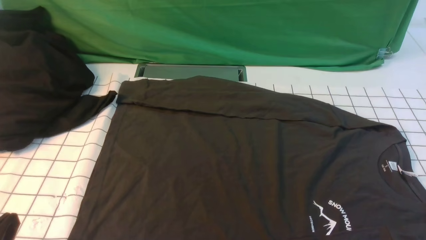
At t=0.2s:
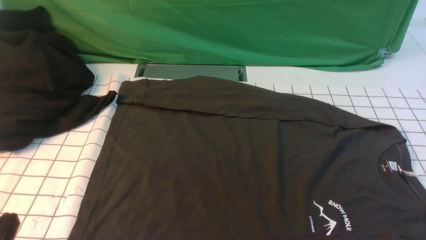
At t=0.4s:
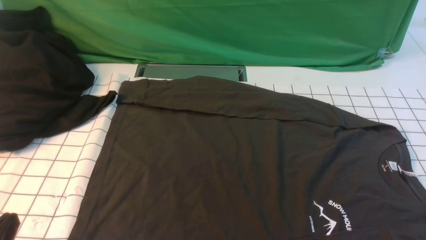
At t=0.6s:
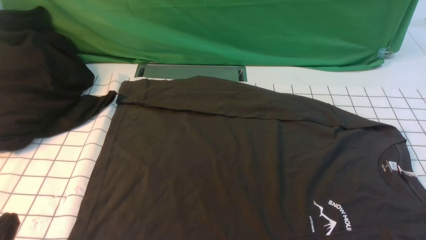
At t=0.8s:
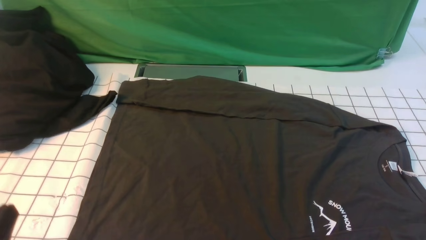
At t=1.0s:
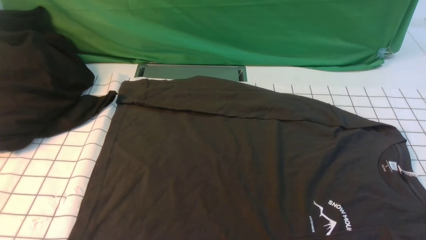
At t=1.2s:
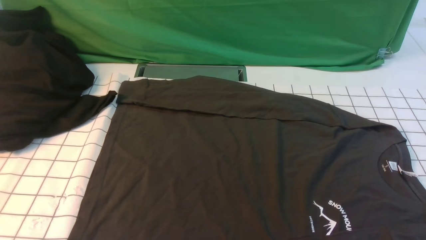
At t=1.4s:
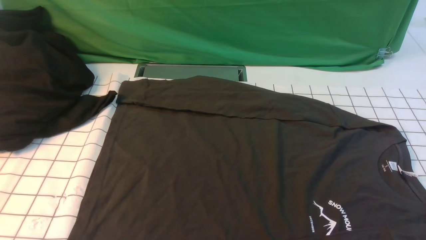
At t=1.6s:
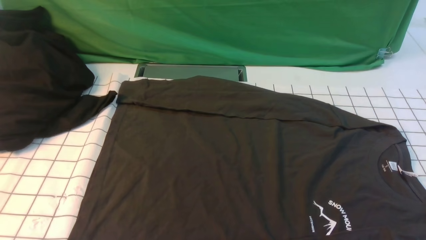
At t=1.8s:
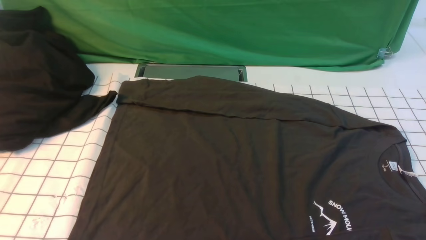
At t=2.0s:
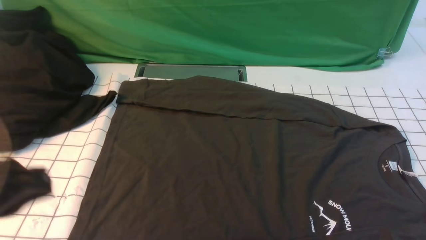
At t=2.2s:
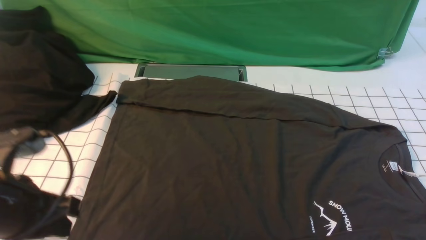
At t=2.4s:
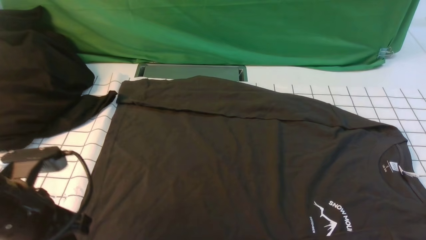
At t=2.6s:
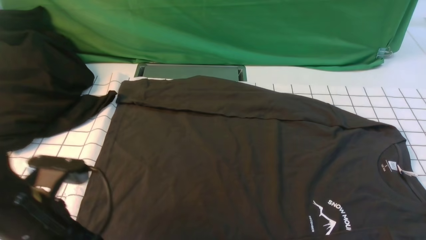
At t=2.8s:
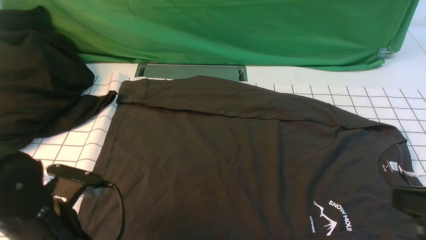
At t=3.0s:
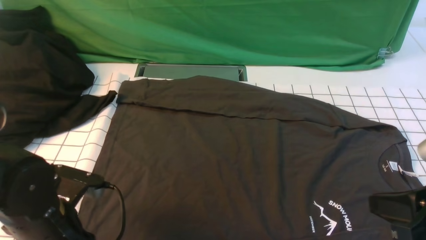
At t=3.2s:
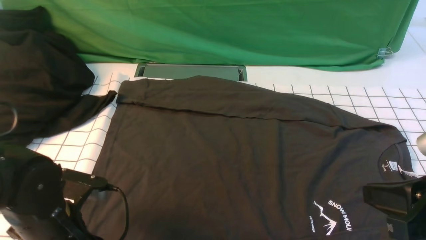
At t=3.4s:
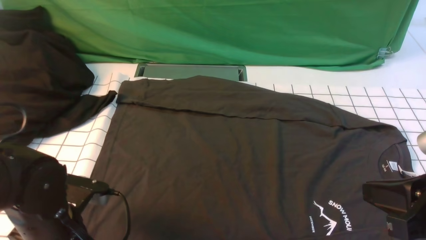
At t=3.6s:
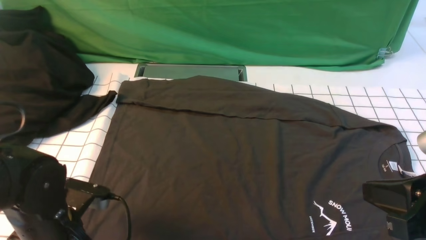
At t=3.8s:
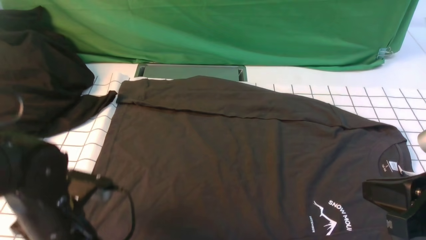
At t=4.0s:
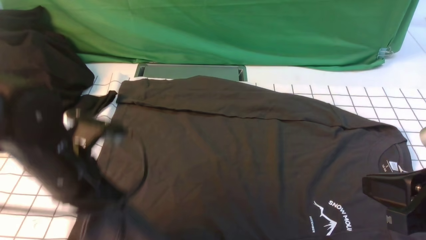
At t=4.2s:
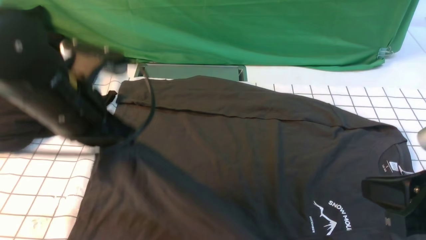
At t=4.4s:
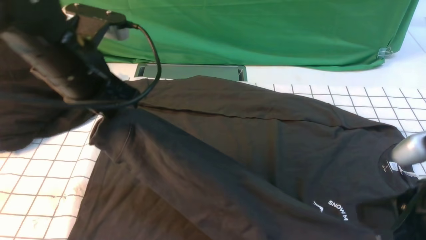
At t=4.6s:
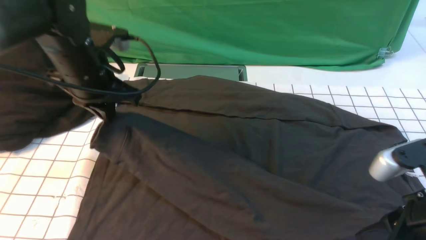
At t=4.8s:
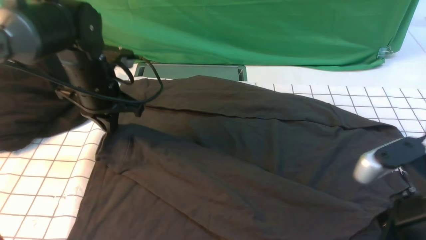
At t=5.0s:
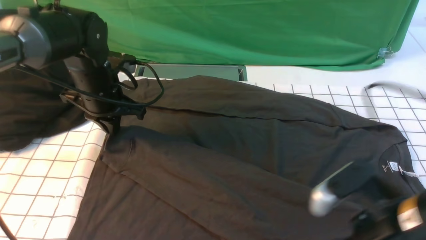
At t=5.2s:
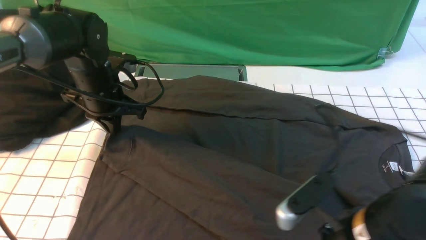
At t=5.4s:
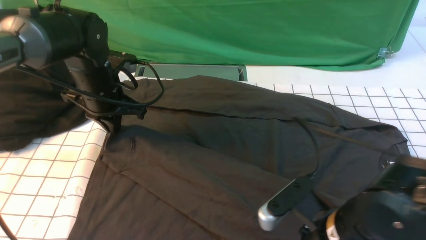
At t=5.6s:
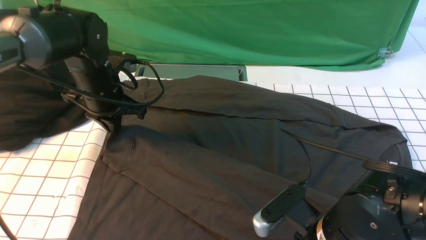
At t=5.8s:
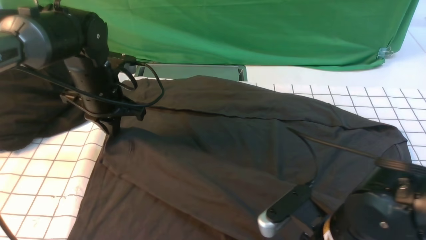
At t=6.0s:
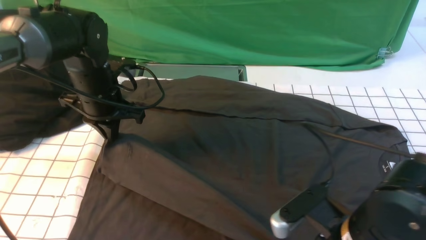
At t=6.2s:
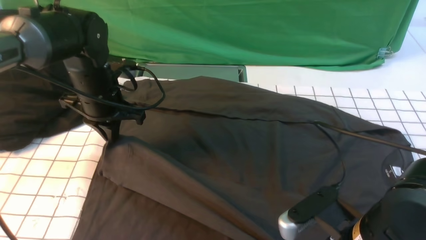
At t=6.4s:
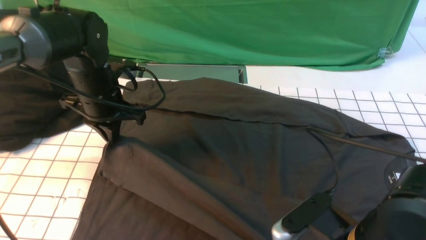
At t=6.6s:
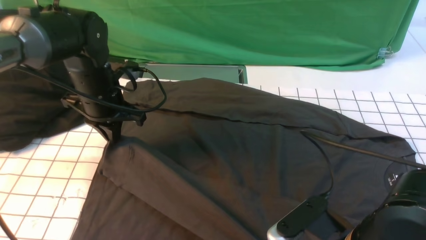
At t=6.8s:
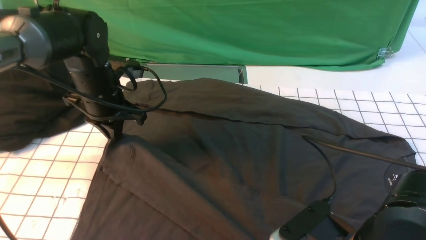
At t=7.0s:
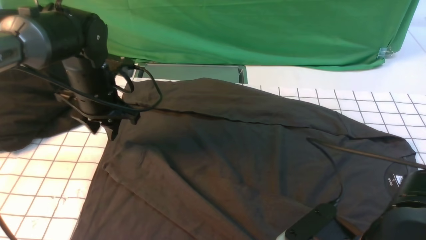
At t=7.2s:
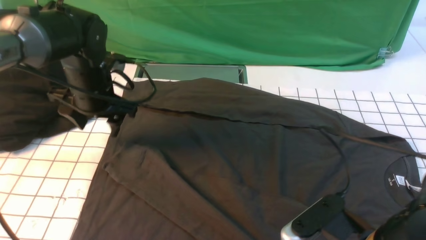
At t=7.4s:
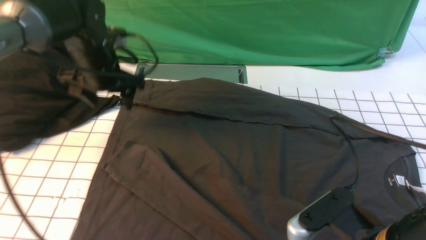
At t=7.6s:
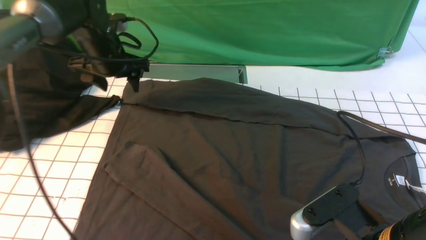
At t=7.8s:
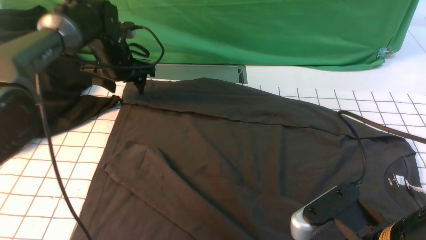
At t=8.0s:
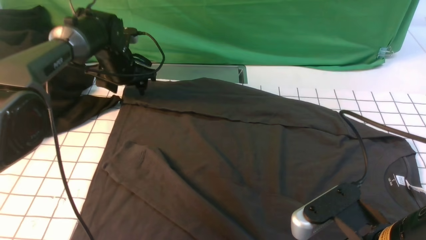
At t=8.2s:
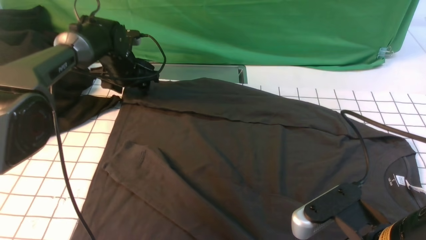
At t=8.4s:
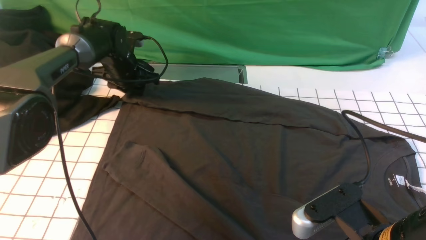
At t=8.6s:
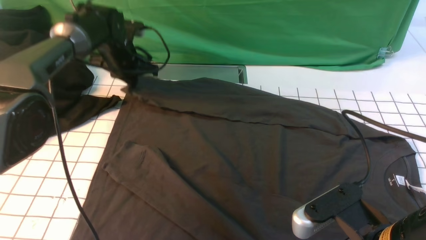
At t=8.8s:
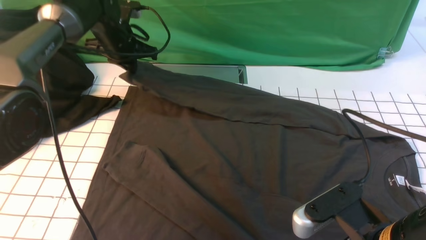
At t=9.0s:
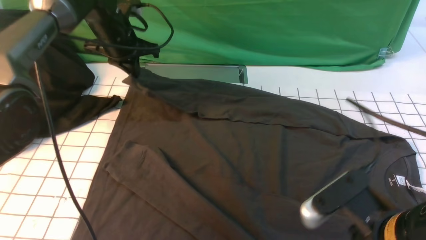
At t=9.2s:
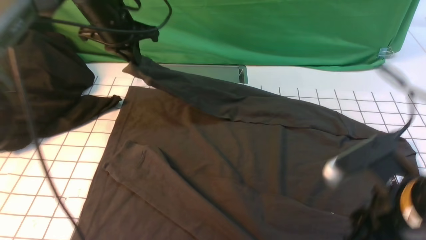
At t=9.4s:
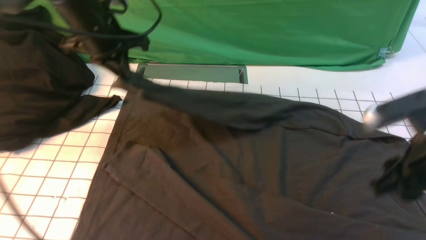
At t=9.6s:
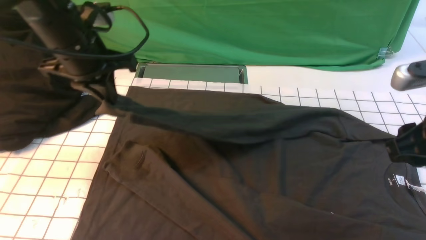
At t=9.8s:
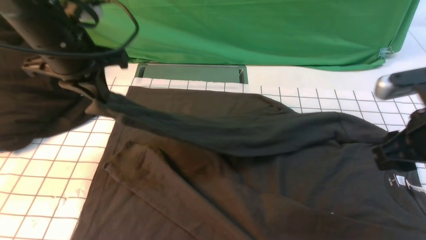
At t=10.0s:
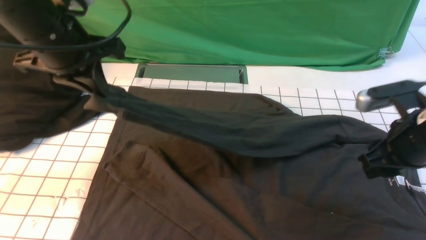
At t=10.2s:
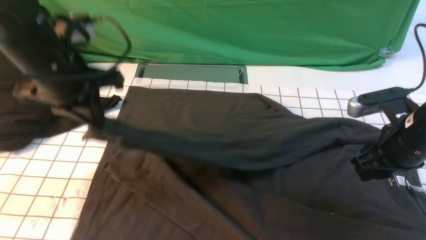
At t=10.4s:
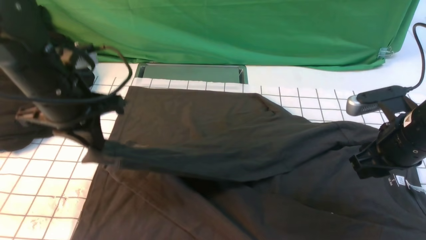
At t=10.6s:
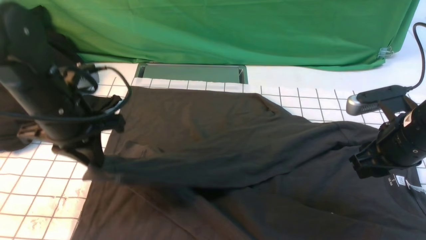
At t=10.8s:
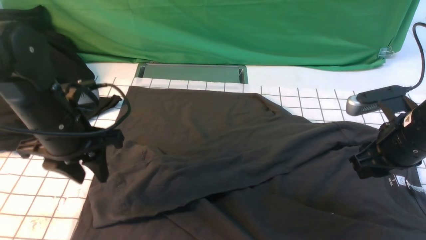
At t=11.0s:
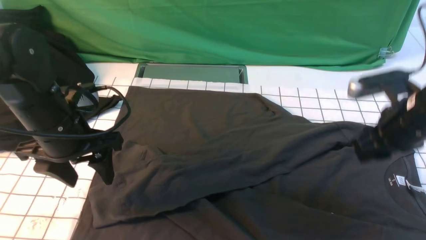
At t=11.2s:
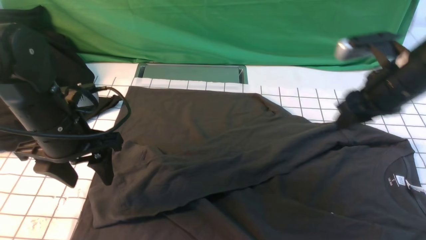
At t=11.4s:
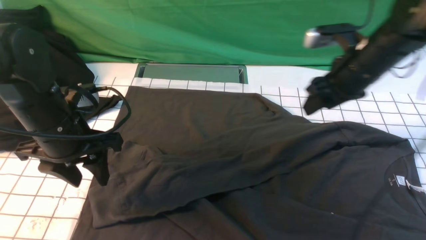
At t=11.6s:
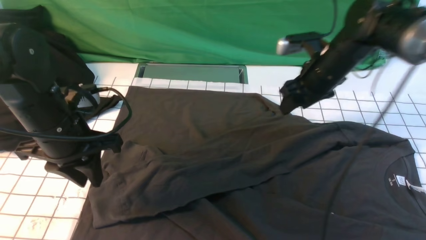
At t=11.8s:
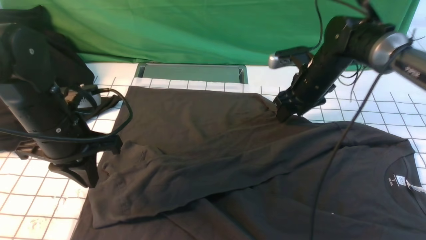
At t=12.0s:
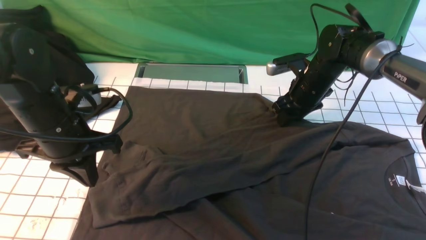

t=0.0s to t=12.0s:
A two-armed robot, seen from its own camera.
Step, t=0.0s to t=3.8s: use the left arm to clamp the cuff closest to it.
Step, t=4.0s to t=7.0s: use the left arm to drag and place the cuff at the centered position on the left edge of the fabric.
Step, t=7.4s to t=8.6s: use the left arm to clamp the cuff farthest from it.
Step, t=8.8s to t=10.8s: use the left arm to drag and drop the cuff onto the cuff closest to the left arm.
t=1.6s to t=3.0s: The right gripper is displaced upward, to the left and forward by roughly 15 cm, and closes its fingers. Meanwhile the left gripper heads forward, downward and to the right, covering roughly 20 cm, and opens up.
t=3.0s to t=4.4s: The left gripper is displaced forward and upward by some 20 cm, and closes.
t=4.4s to t=6.0s: The left gripper goes approximately 10 cm downward and forward. Meanwhile the right gripper moves downward and to the left, some 10 cm, and opens, then closes once more.
t=6.0s to t=7.6s: The right gripper ends up roughly 5 cm from where it was, and opens up. Meanwhile the left gripper moves forward, about 10 cm, and opens its fingers.
t=7.6s to t=9.0s: The left gripper closes up.
t=9.0s to t=10.4s: The right gripper goes some 15 cm forward and to the right. The left gripper moves backward, roughly 20 cm.
t=10.4s to t=12.0s: The left gripper opens, then closes once more. Meanwhile the right gripper moves forward and to the left, some 20 cm.

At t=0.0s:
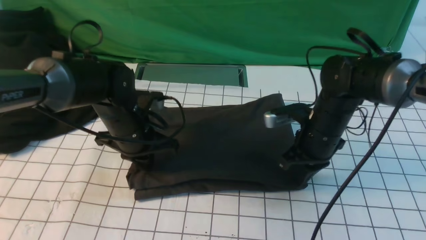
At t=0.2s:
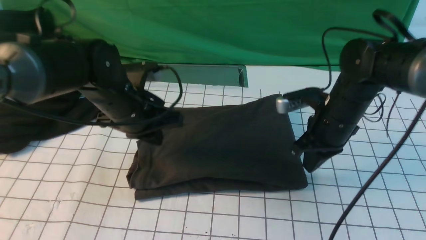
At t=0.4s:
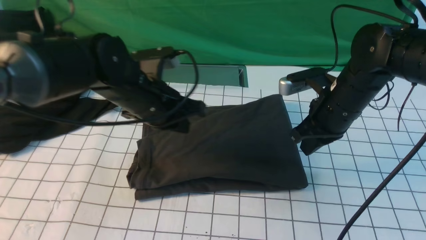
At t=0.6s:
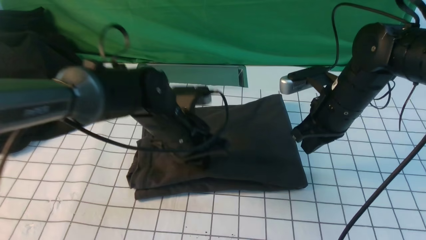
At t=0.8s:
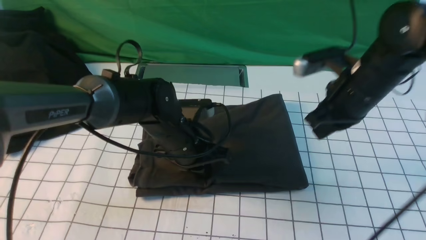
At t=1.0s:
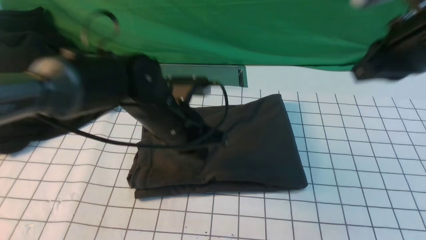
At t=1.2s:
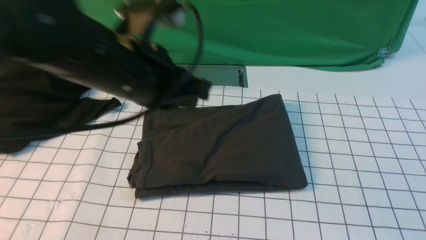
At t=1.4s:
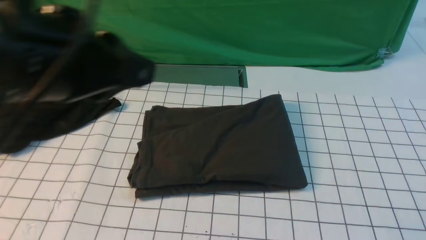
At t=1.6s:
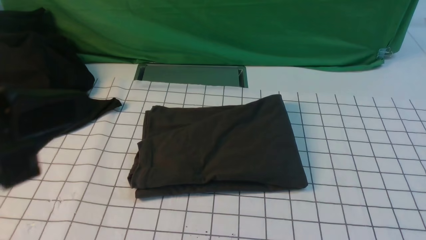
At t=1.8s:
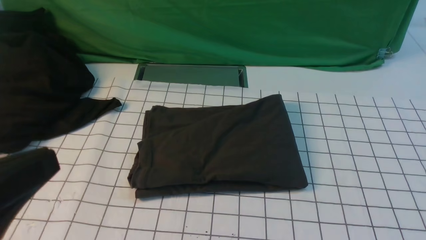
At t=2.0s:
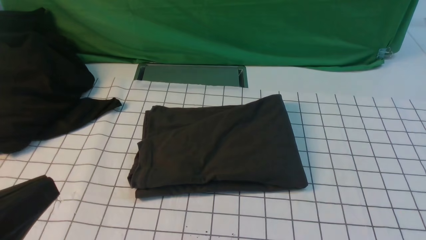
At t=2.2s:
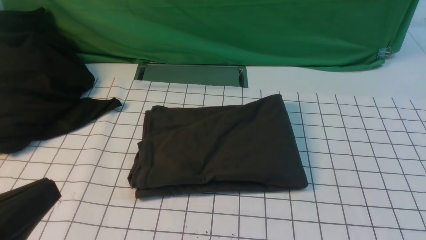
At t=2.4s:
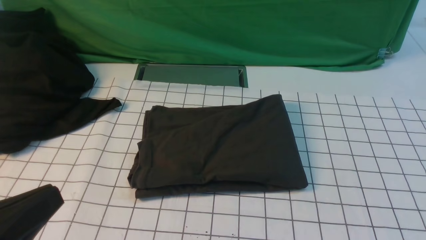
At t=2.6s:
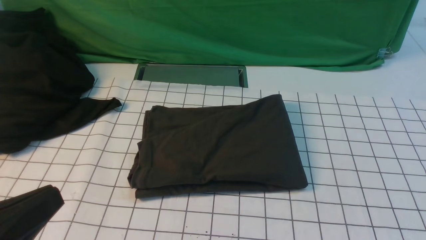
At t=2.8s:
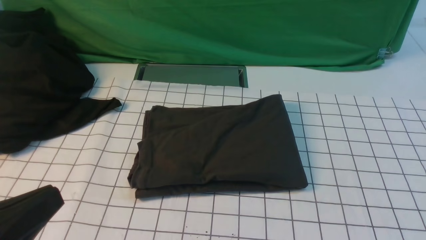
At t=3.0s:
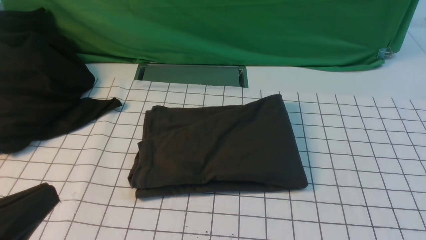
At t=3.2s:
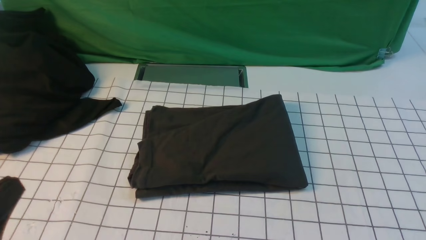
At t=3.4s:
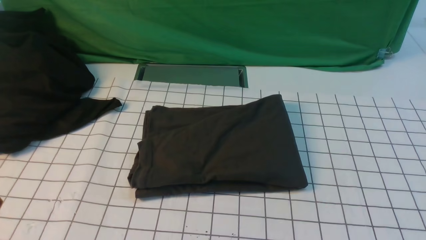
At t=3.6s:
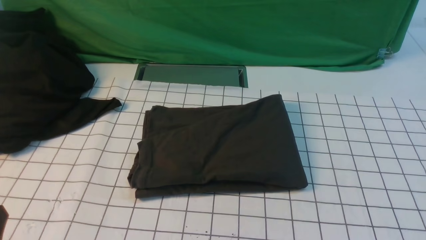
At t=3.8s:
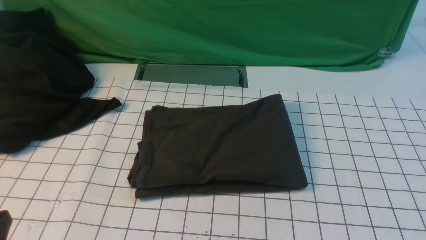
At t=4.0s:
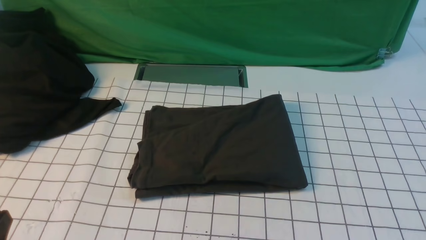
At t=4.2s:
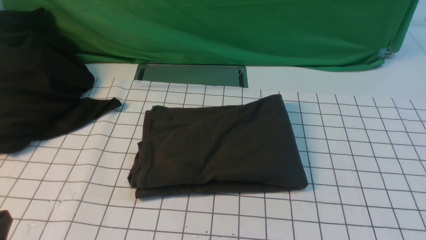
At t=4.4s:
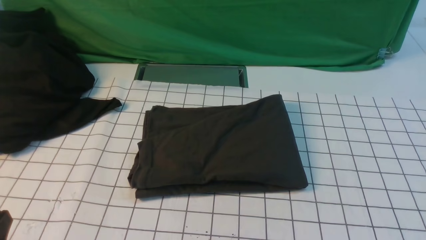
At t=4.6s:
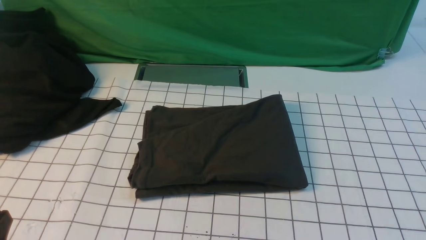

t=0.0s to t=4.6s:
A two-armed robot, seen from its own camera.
t=0.0s to t=1.6s: The left gripper heads backward and upward, covering some 30 cm. Meanwhile the right gripper moves backward, upward and to the right, approximately 40 cm.
t=1.6s to t=3.0s: The left gripper goes approximately 10 cm downward.
t=3.0s to t=4.6s: The left gripper is displaced downward by some 10 cm.
